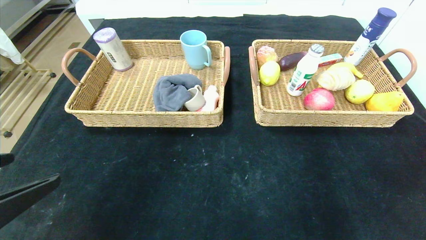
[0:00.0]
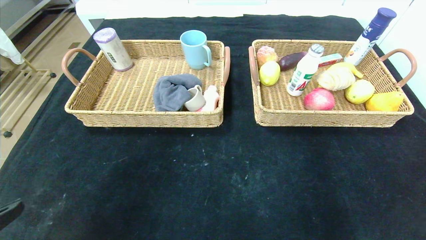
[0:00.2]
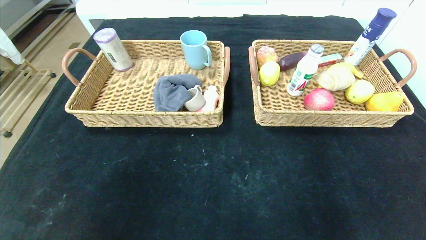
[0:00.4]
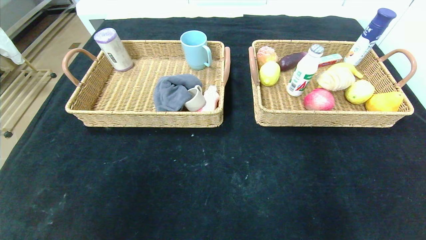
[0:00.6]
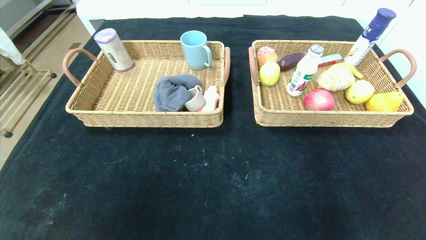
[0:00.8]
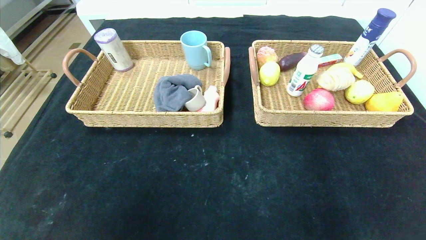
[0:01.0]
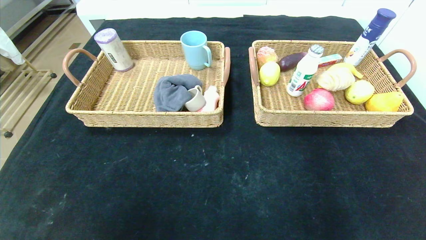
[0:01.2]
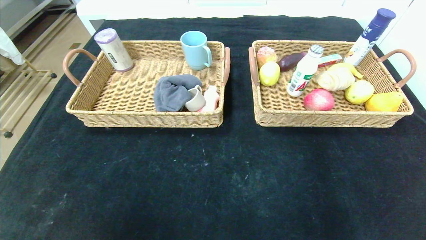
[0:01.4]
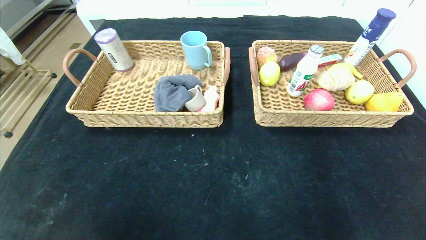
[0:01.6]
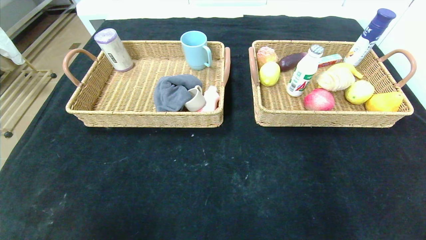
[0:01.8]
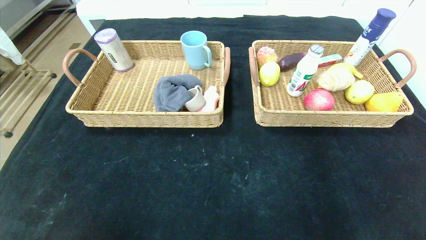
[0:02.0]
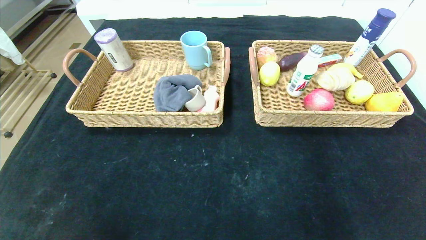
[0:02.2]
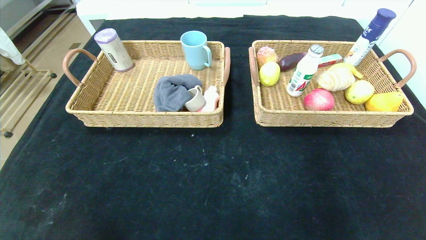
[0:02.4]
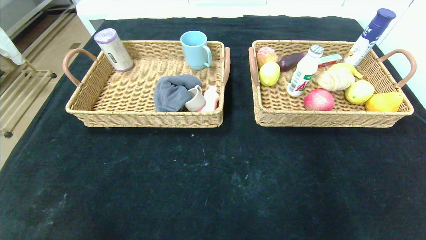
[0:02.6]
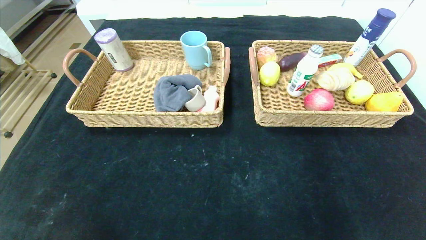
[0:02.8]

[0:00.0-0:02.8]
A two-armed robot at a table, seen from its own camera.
0:00.0 to 0:01.4: Both grippers move backward and downward, some 20 cm.

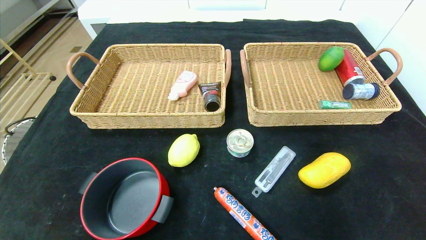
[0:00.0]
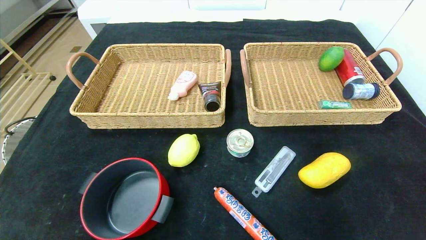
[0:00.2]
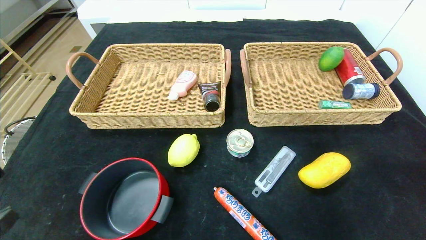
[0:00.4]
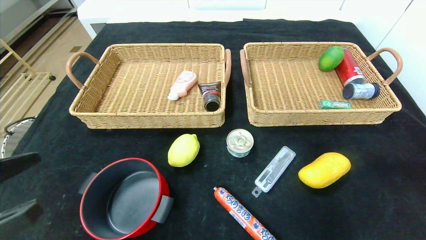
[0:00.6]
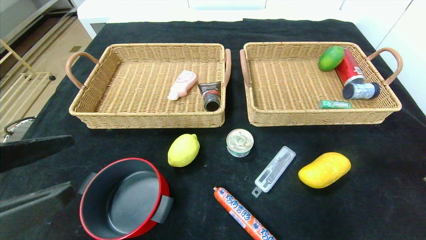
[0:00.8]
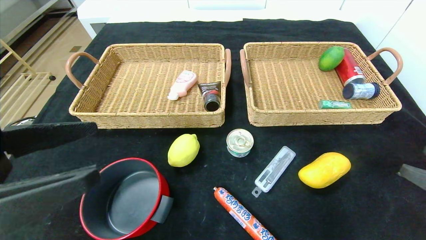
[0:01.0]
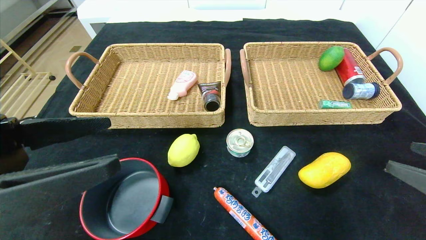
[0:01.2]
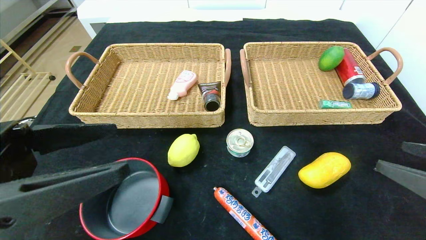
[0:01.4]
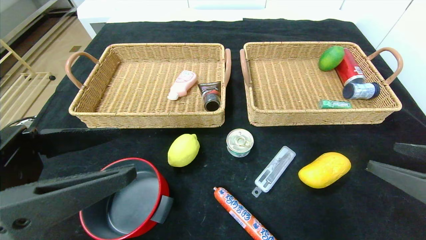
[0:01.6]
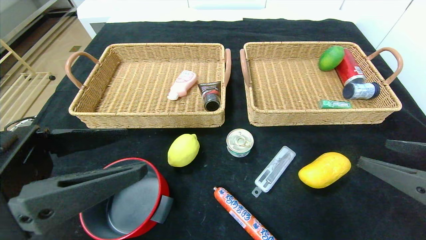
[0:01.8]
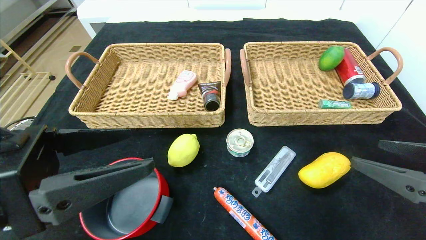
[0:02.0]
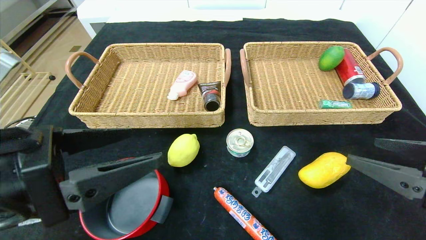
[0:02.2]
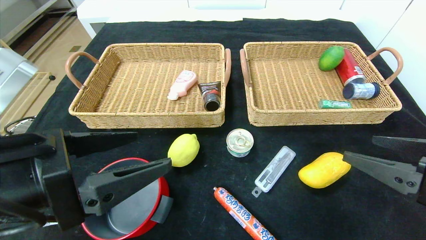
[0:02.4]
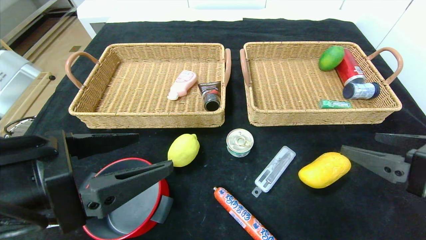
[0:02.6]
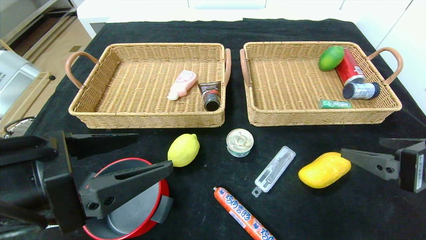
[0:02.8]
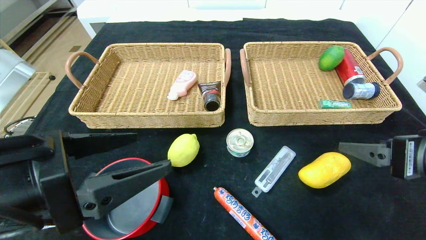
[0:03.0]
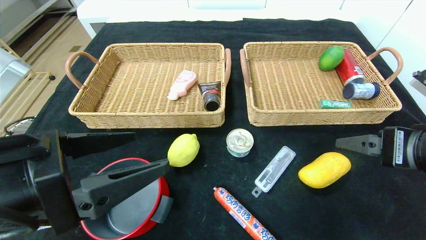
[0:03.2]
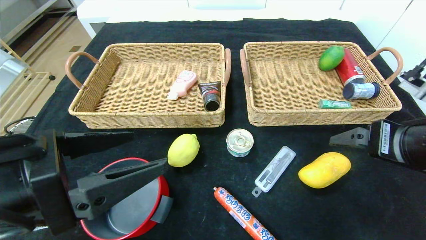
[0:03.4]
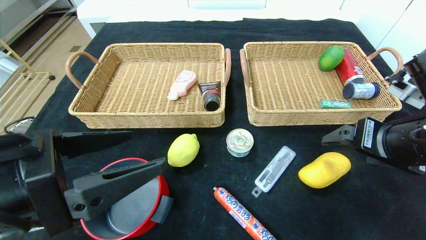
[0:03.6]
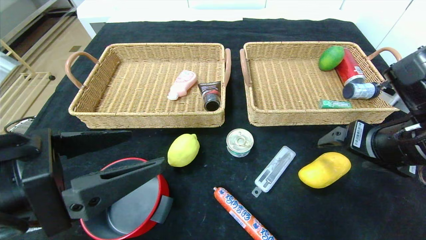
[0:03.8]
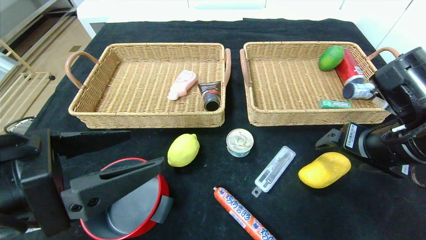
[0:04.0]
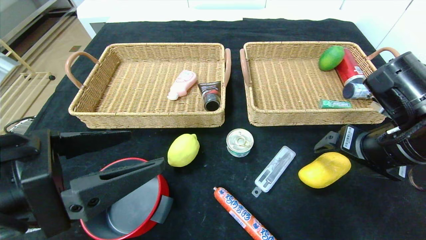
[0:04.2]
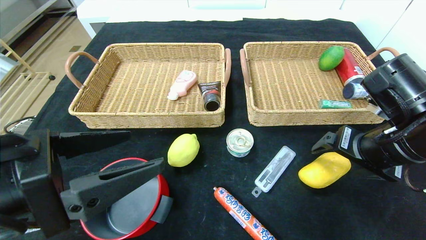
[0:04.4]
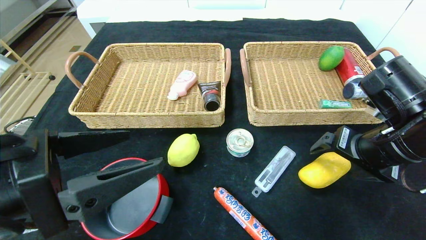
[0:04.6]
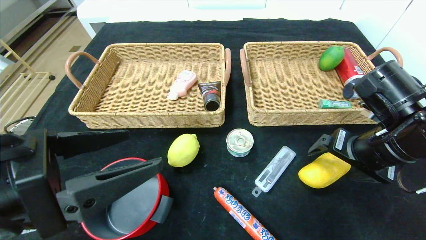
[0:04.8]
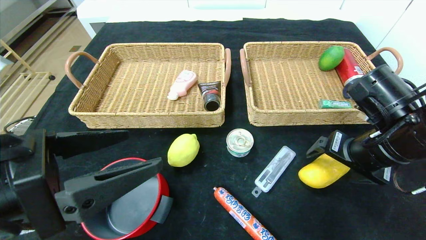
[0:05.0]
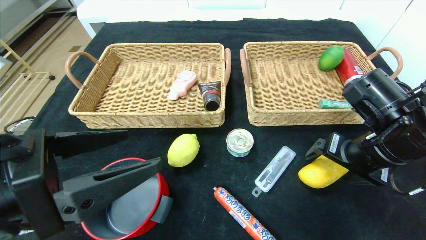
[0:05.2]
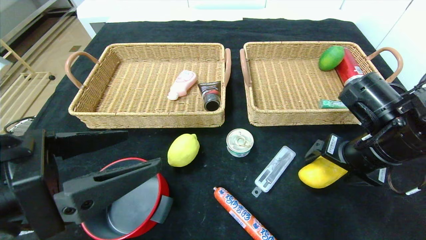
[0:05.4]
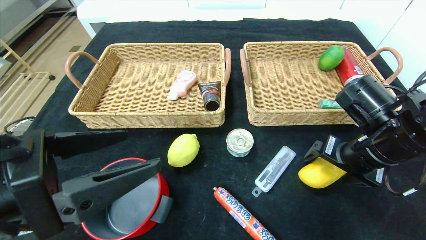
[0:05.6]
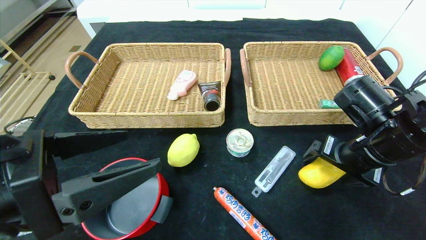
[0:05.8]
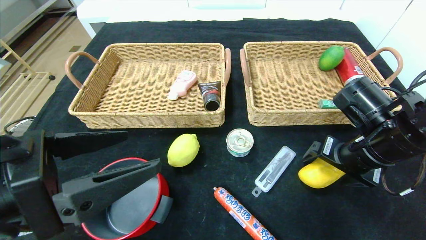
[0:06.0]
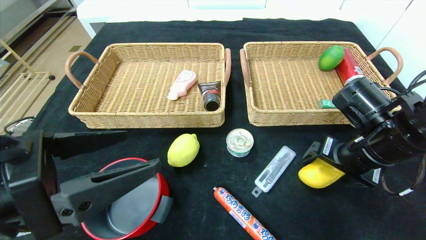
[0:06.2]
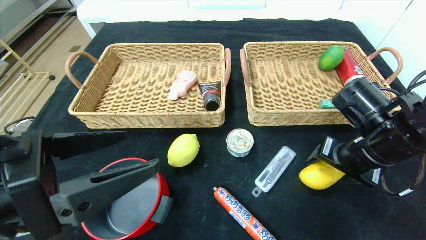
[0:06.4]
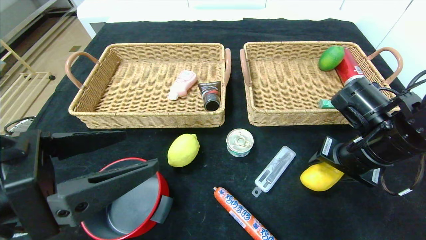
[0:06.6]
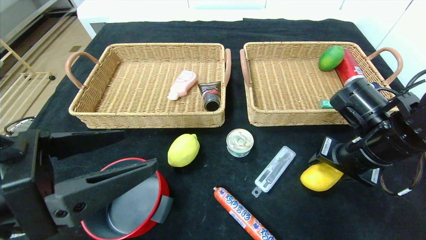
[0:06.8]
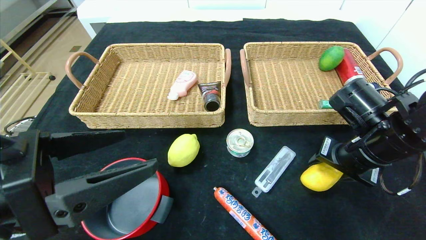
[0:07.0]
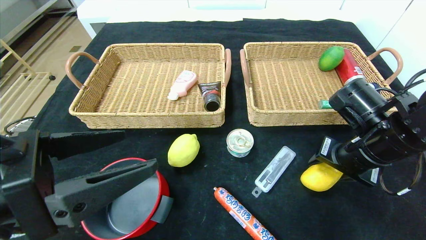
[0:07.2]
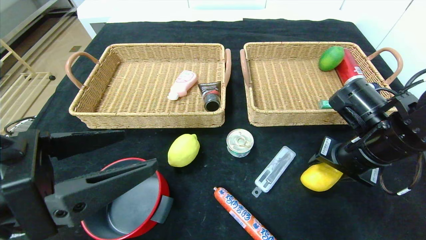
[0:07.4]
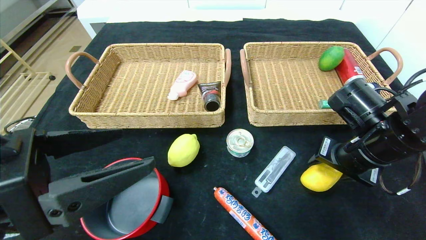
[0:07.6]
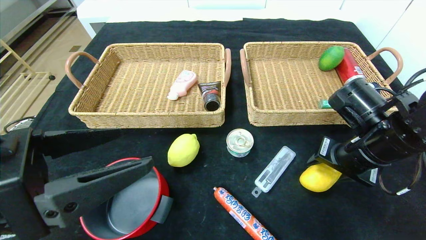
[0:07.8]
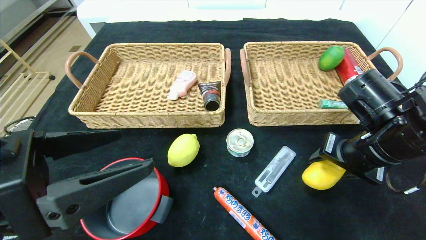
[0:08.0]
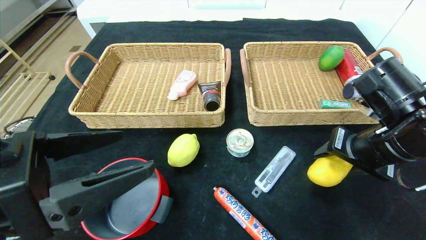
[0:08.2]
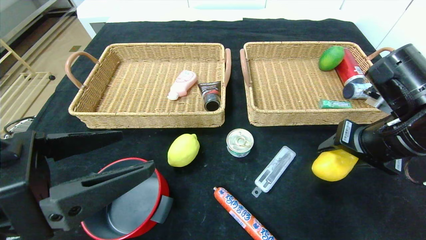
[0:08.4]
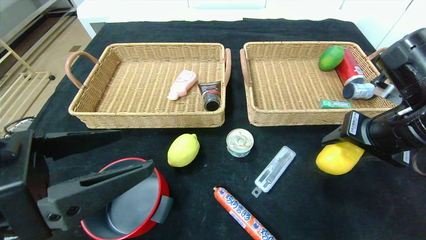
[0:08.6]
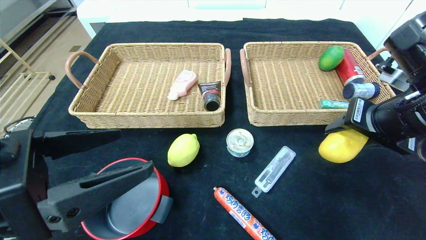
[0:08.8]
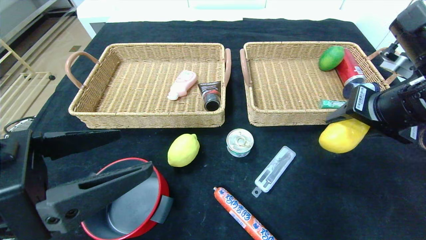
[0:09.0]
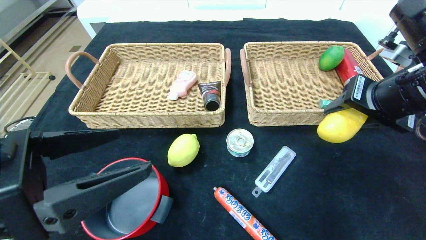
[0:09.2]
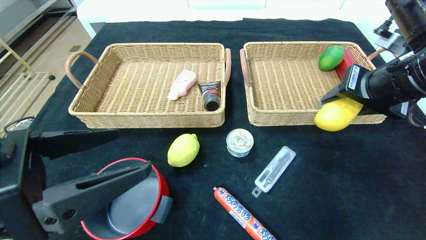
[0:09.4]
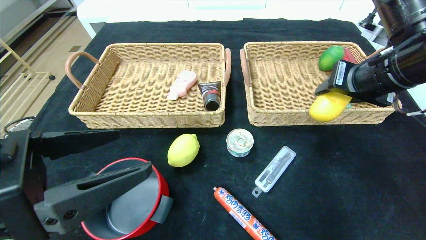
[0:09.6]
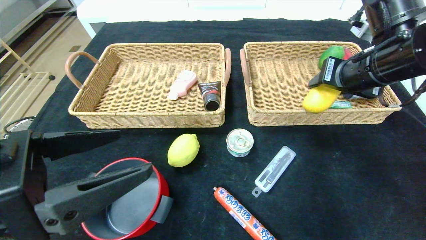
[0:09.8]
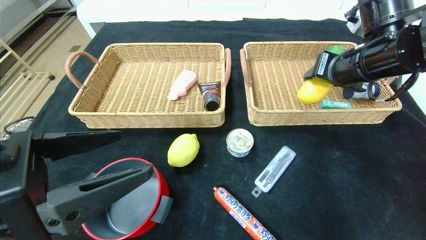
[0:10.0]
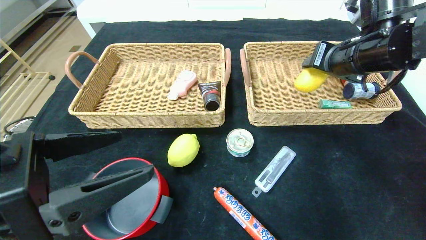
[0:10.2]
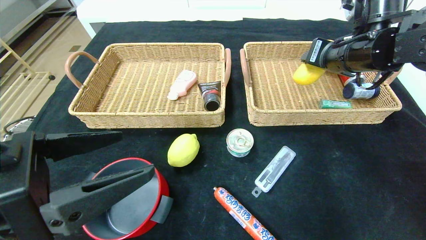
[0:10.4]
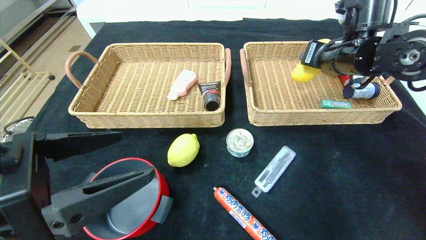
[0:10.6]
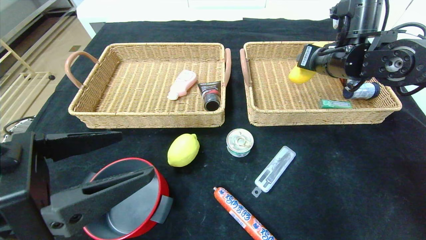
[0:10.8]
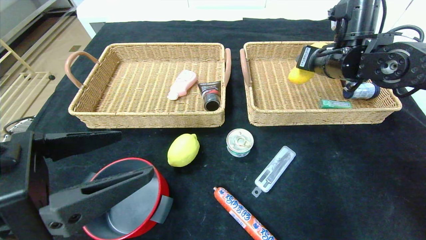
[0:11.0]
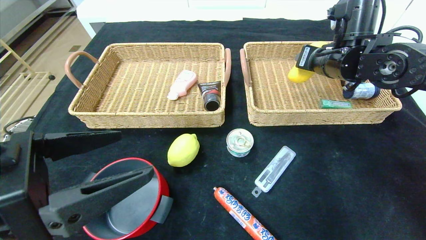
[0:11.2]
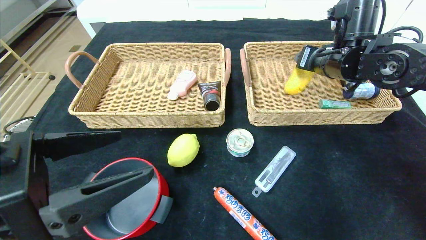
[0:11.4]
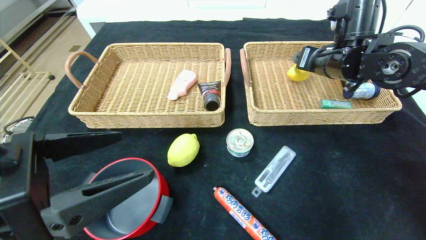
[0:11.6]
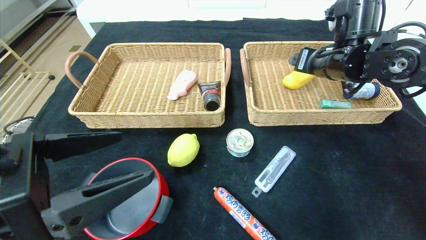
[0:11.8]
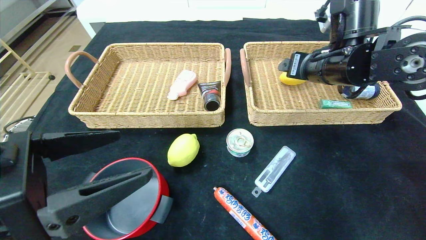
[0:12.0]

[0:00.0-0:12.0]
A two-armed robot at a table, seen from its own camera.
0:00.0 to 0:01.6: The left gripper travels forward, upward and to the right by roughly 20 cm, while the right gripper travels forward, upward and to the left by approximately 15 cm.
0:01.6 to 0:03.0: The right gripper shifts by about 5 cm.
0:03.0 to 0:04.4: The right gripper moves forward, roughly 5 cm.
0:04.4 to 0:06.0: The grippers move only a little.
0:06.0 to 0:07.6: The right gripper closes.
0:07.6 to 0:09.0: The right gripper goes approximately 10 cm upward.
0:09.0 to 0:10.4: The right gripper travels forward by approximately 10 cm.
0:10.4 to 0:12.0: The right gripper opens its fingers.

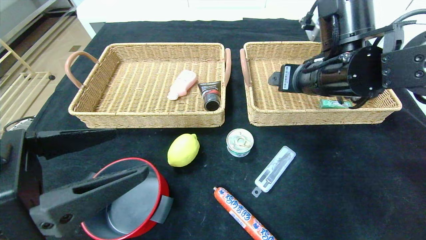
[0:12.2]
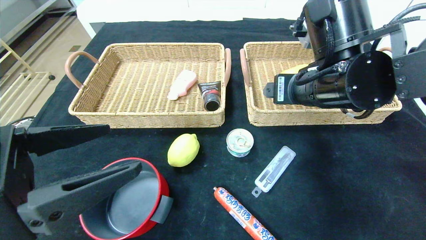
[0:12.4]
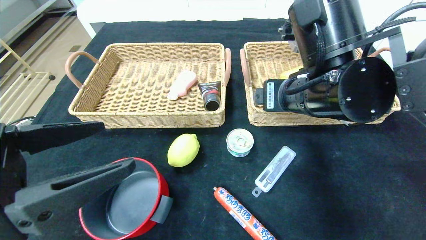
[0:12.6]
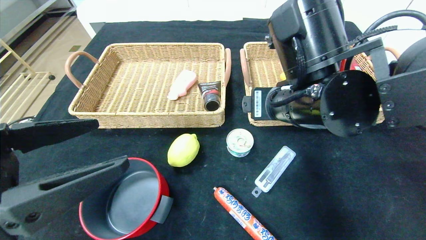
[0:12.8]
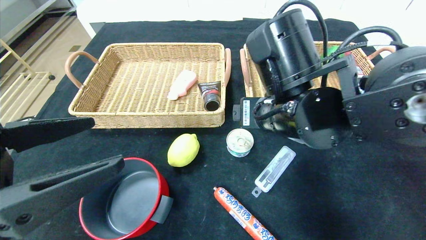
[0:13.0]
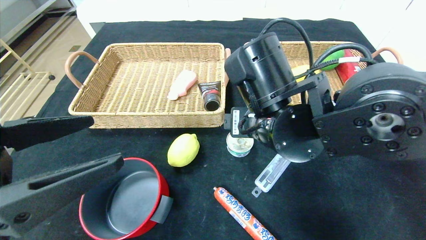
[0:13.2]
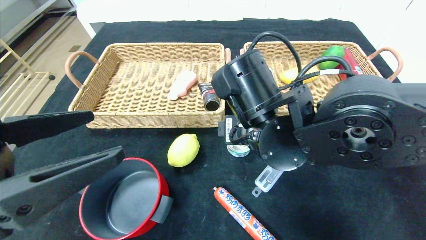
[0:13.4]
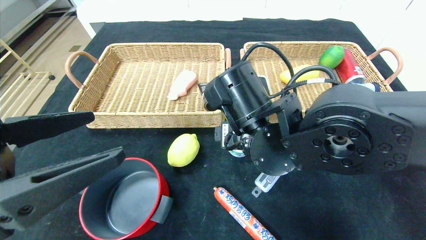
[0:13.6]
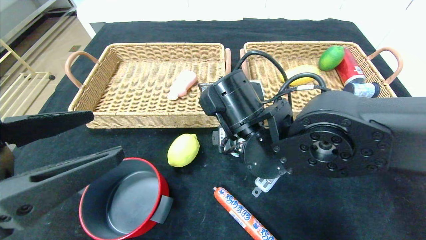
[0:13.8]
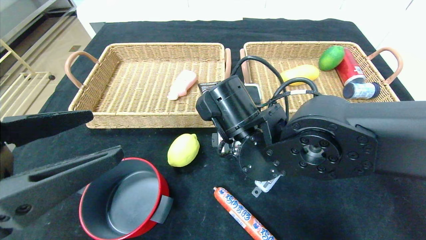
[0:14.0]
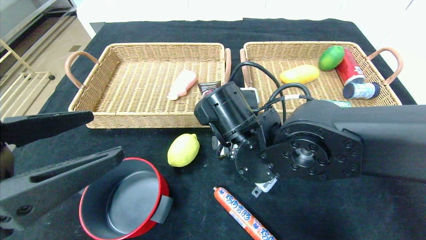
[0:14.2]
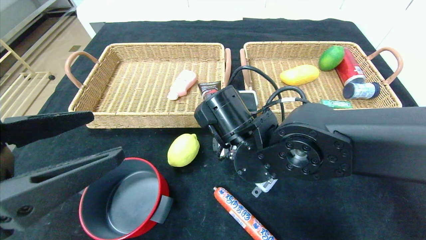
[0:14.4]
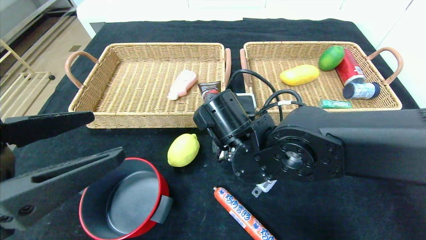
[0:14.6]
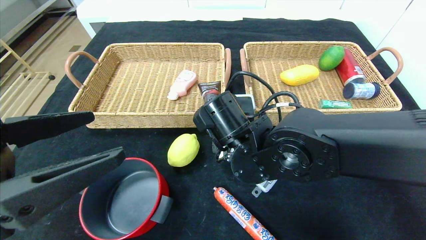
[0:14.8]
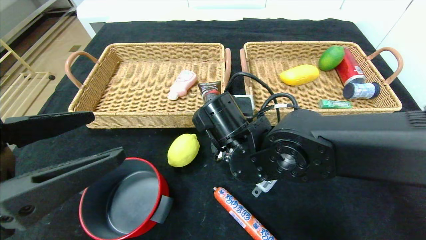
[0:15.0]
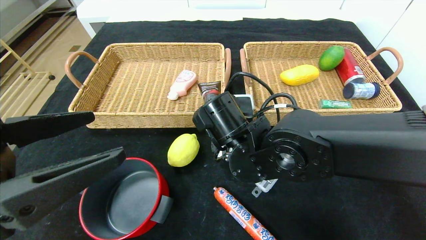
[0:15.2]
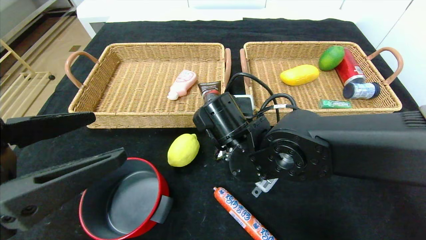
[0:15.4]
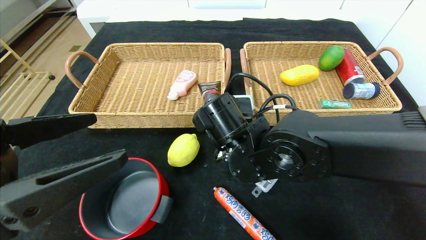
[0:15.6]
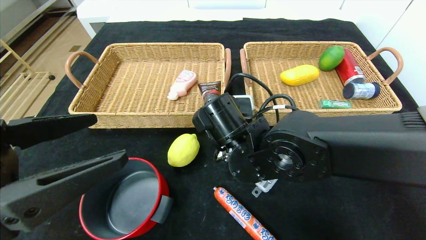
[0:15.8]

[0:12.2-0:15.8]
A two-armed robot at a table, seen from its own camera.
0:12.2 to 0:14.0: The right gripper is displaced to the left, downward and backward by roughly 15 cm.
0:14.0 to 0:15.8: The right gripper closes its fingers.
